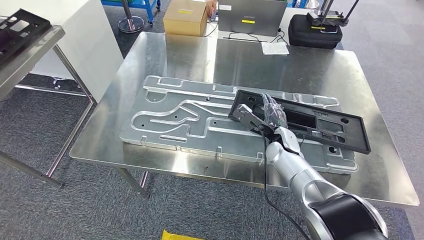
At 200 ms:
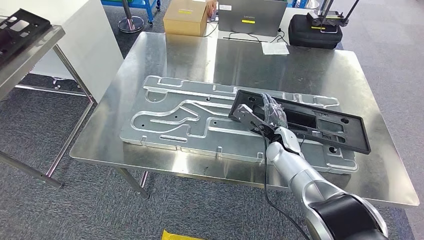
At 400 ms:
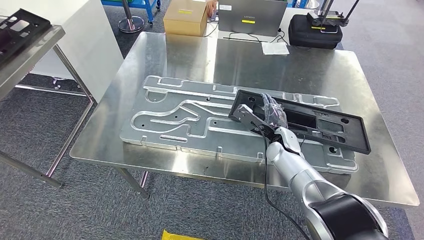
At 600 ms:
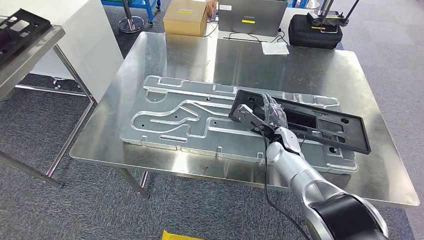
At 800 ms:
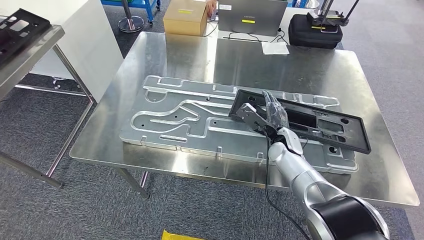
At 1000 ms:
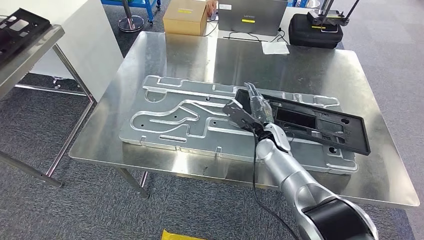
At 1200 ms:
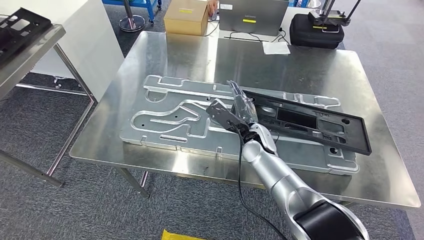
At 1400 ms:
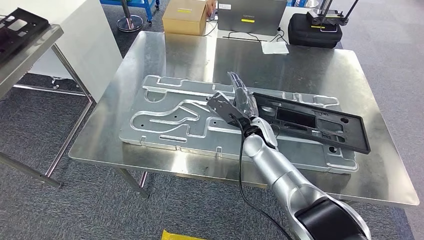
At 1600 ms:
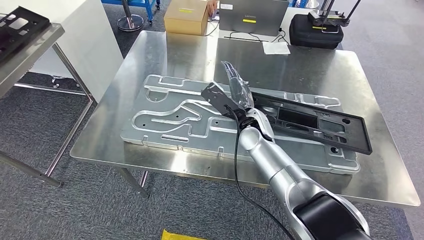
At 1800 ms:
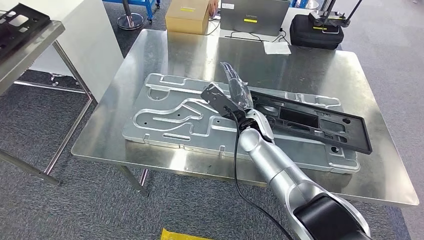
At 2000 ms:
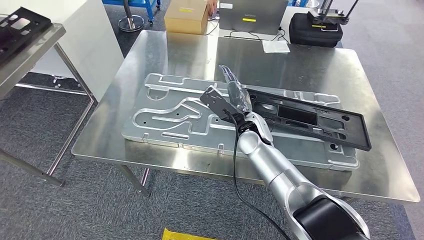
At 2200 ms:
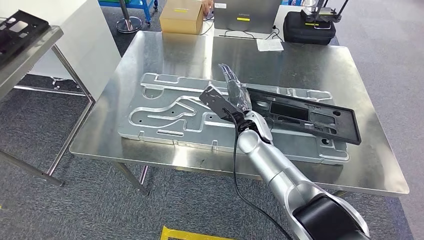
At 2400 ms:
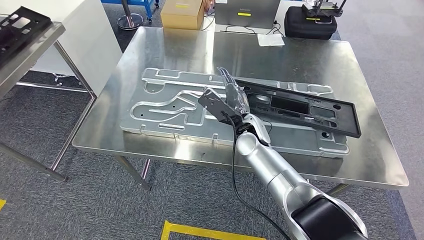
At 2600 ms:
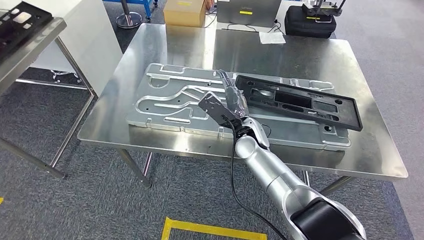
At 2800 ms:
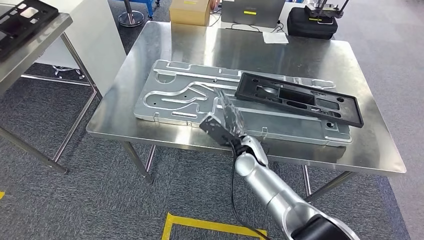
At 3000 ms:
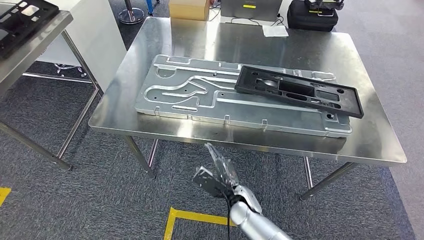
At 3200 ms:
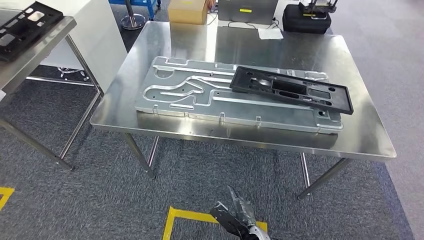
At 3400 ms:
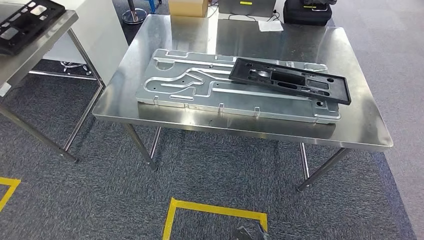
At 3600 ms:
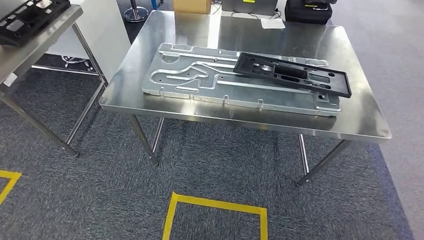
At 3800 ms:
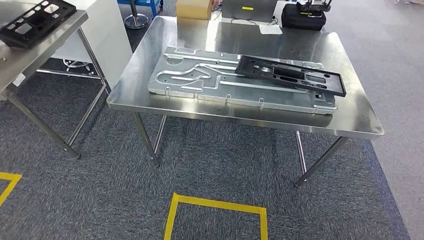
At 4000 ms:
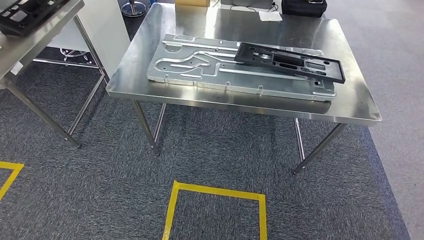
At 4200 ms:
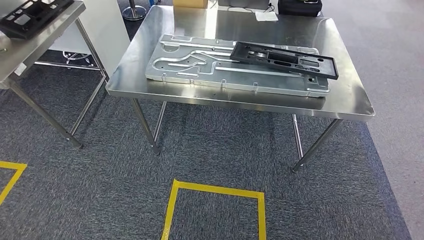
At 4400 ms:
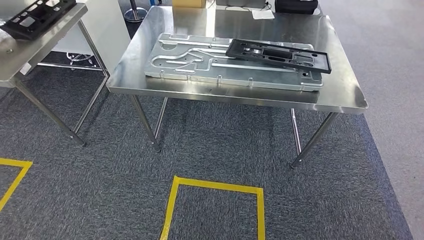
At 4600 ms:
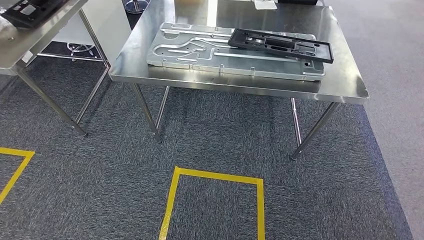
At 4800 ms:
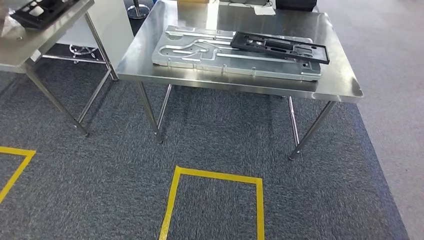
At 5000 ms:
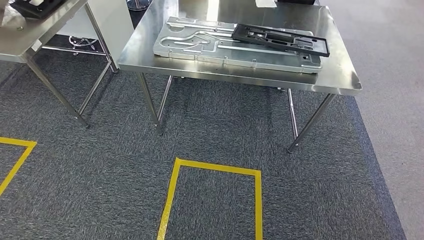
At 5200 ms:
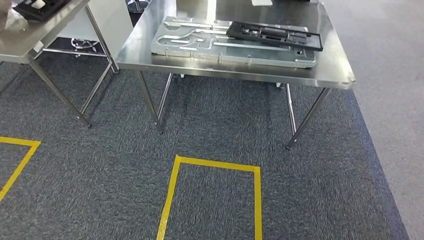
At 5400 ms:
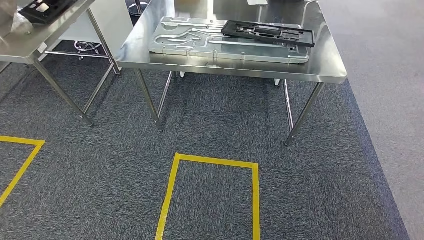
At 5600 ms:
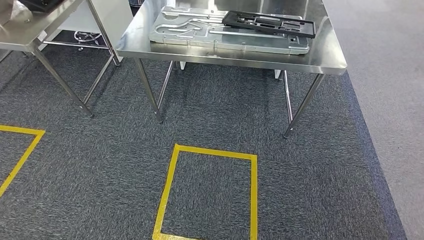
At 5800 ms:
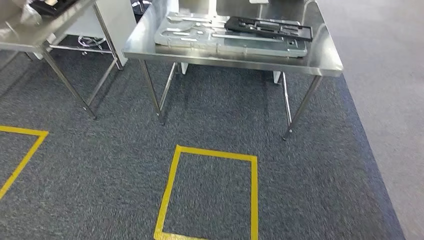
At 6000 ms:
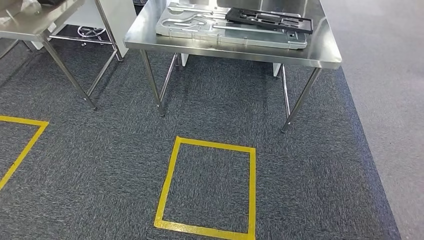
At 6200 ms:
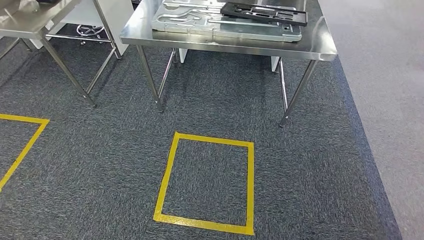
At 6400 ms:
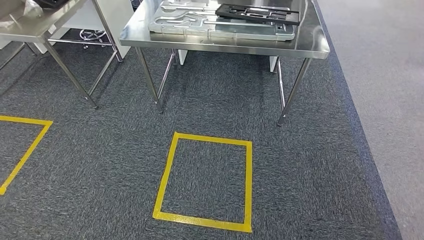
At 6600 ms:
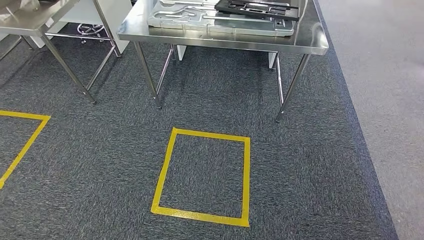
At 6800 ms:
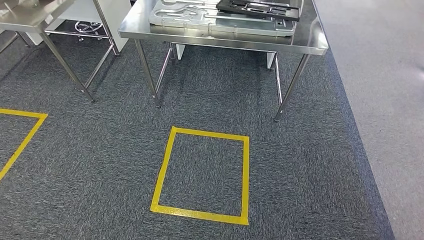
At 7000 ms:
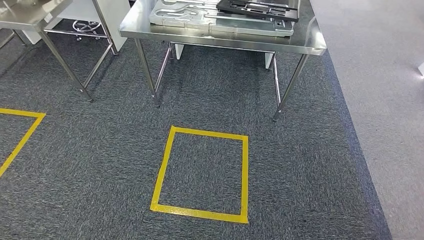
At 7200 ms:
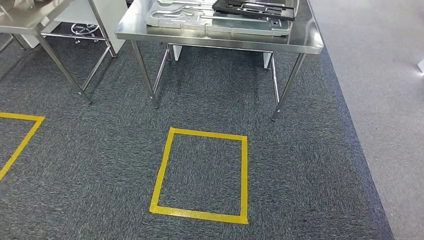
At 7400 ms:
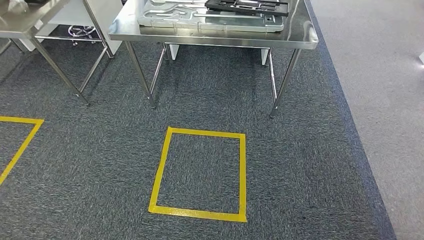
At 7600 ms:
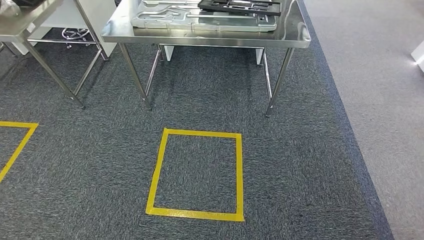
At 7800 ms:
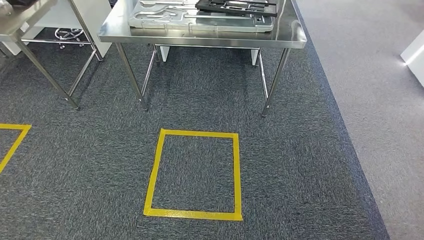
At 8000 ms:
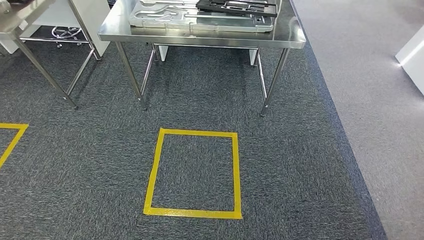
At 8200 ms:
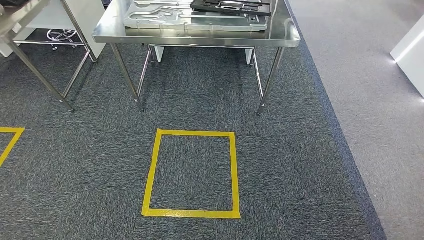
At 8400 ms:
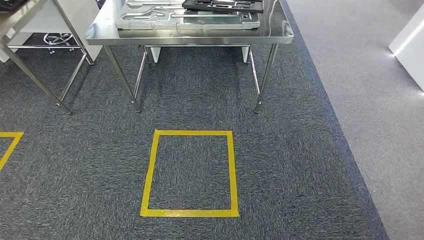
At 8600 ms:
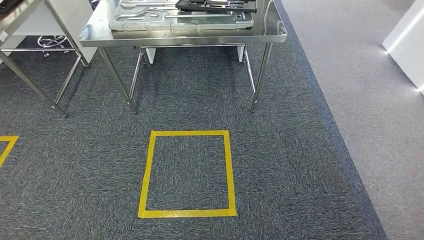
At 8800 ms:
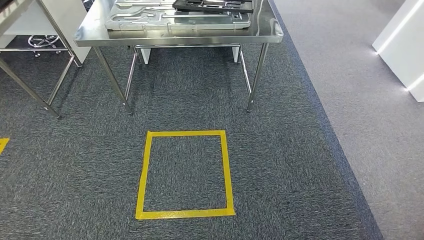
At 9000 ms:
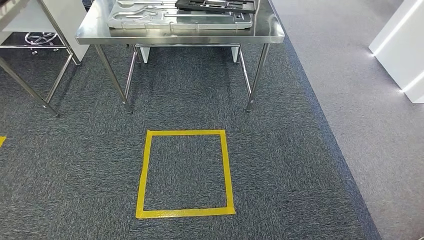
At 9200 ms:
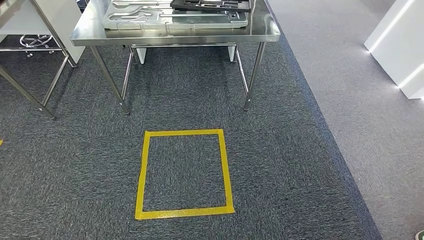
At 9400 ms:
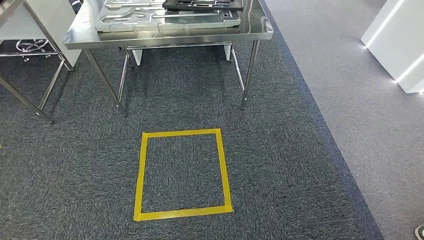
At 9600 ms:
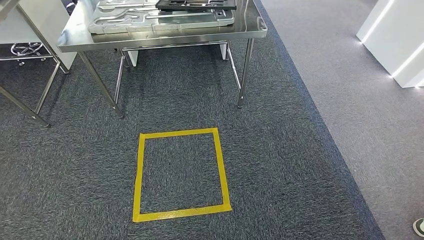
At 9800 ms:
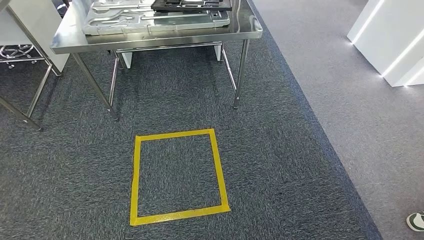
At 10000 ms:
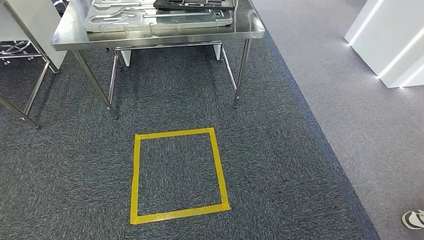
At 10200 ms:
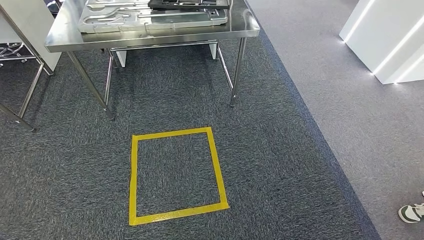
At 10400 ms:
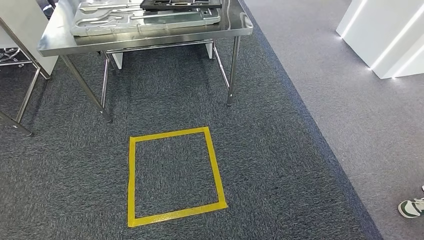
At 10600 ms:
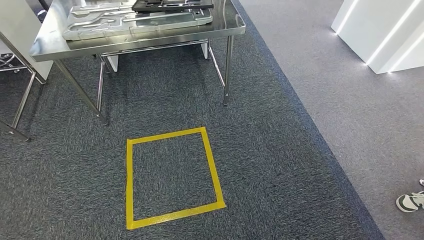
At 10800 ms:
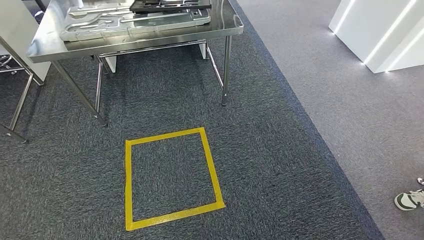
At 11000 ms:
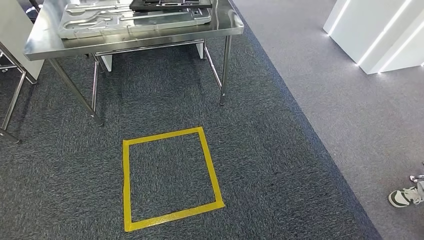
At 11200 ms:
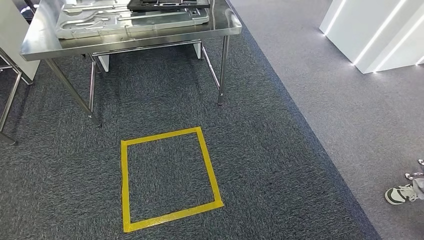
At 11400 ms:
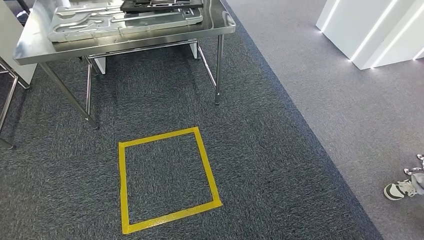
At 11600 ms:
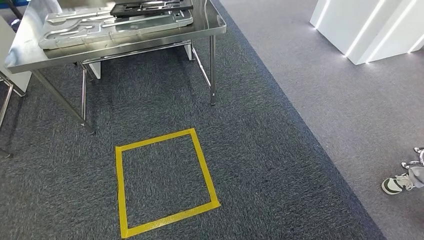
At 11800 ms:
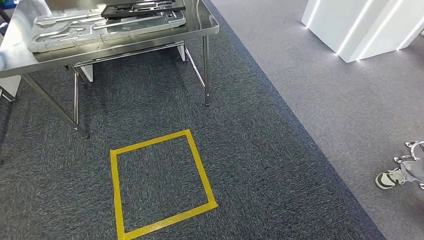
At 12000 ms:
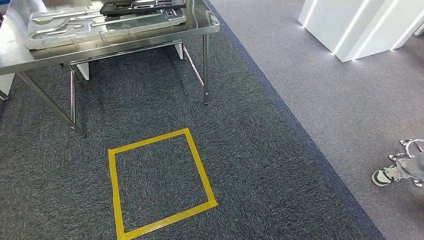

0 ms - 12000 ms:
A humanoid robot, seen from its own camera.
Step, 0 ms - 2600 ms: Insert the large material into the corresponding slot on the workbench.
0 ms - 1600 ms: The right hand shifts roughly 15 cm to the left and upward.

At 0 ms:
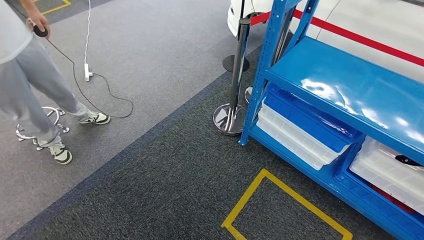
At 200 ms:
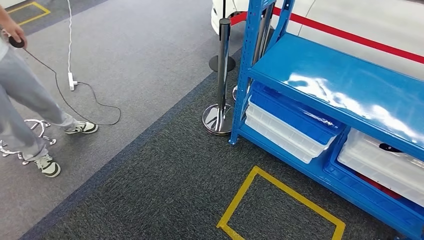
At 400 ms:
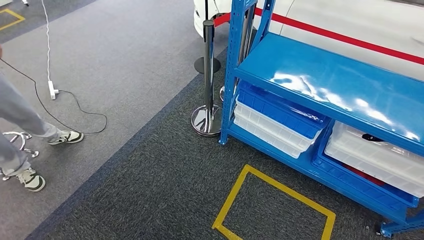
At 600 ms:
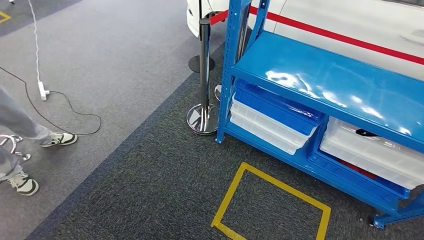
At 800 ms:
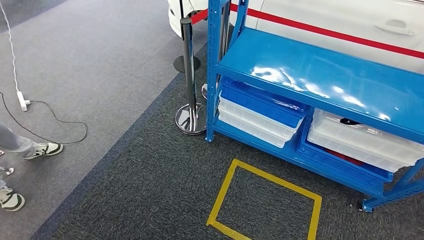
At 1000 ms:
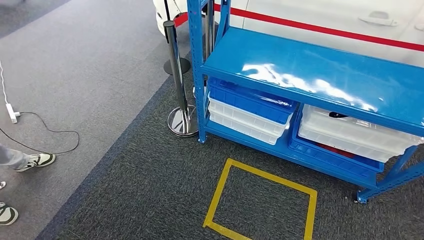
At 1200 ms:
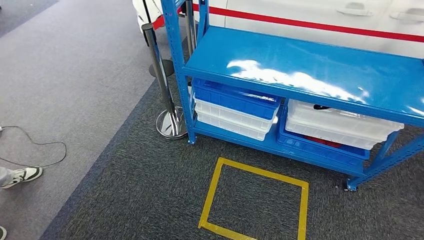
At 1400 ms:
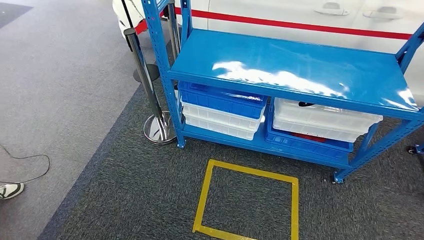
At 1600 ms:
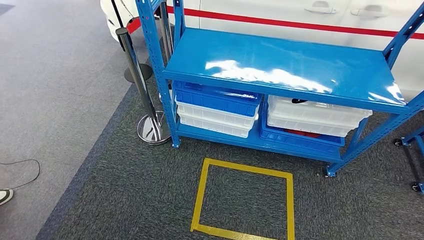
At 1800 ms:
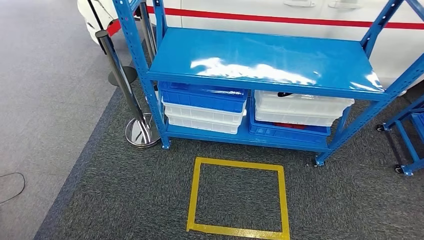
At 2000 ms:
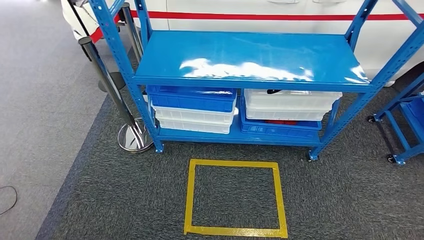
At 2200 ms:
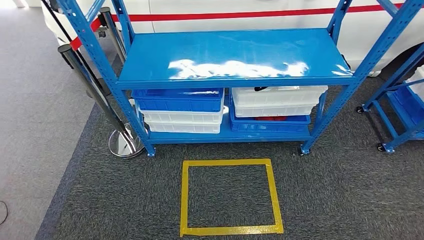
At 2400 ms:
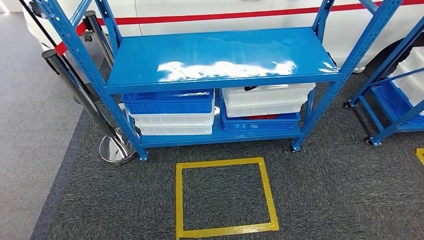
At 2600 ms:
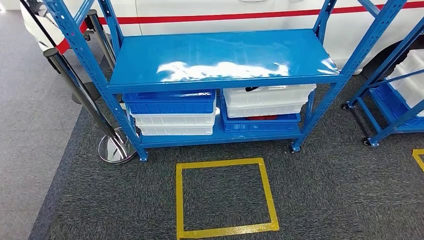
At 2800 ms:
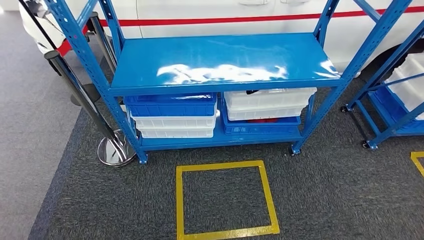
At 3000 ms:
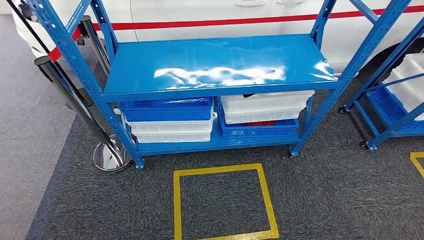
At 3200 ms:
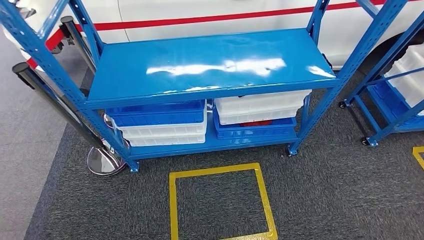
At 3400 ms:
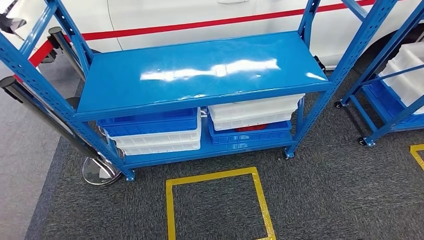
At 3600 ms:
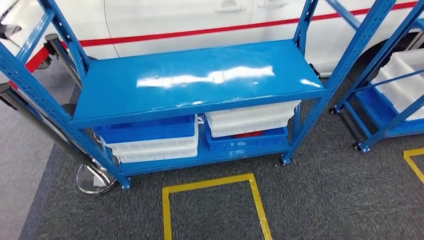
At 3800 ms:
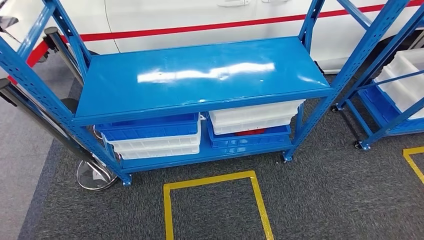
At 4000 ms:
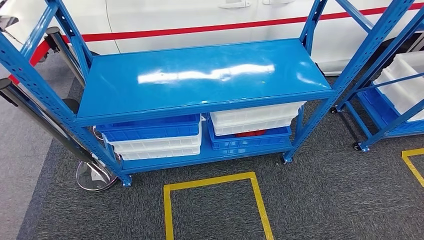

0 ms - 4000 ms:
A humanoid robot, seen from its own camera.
Step, 0 ms - 4000 ms: Move to the initial position of the shelf.
